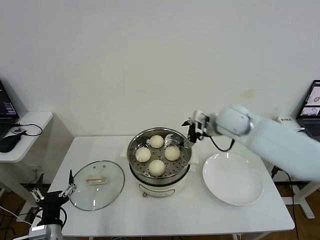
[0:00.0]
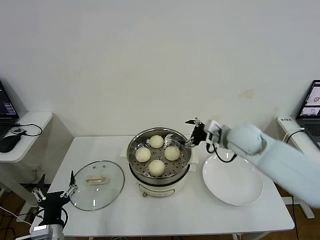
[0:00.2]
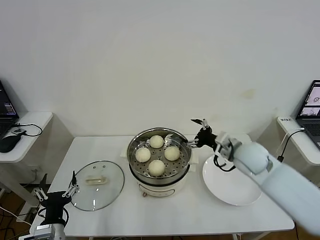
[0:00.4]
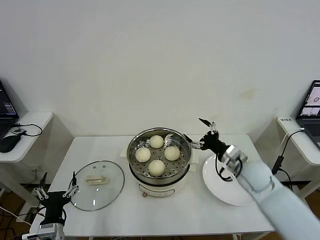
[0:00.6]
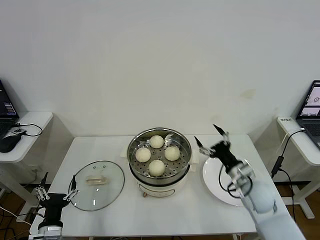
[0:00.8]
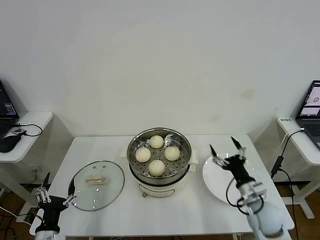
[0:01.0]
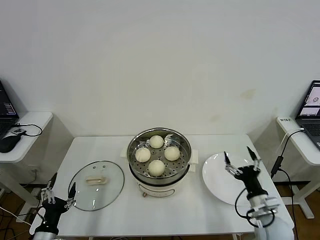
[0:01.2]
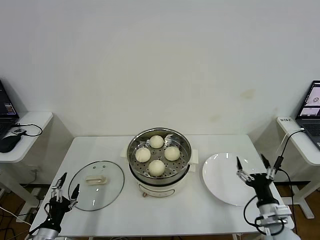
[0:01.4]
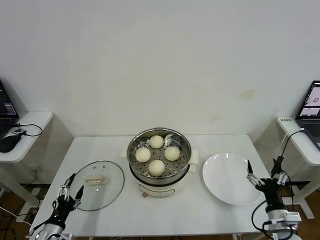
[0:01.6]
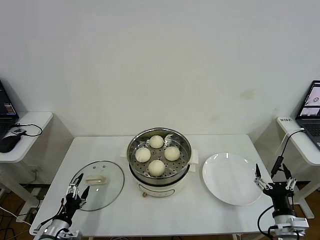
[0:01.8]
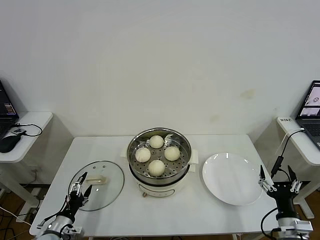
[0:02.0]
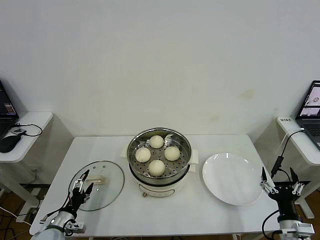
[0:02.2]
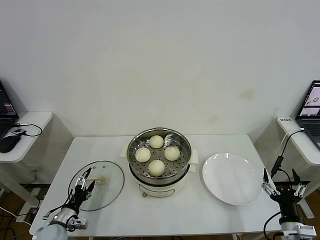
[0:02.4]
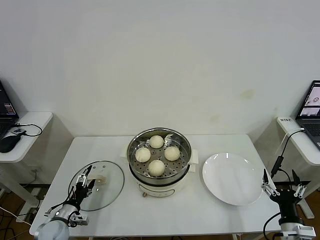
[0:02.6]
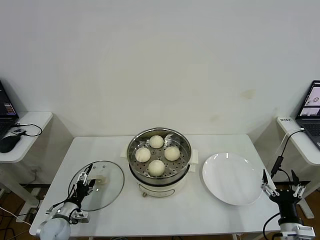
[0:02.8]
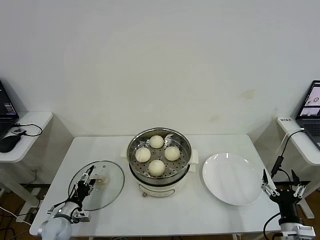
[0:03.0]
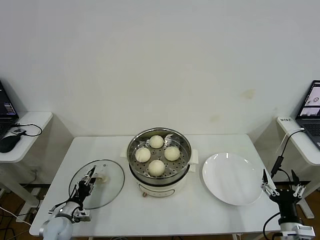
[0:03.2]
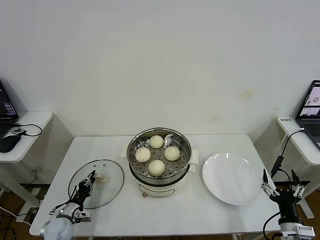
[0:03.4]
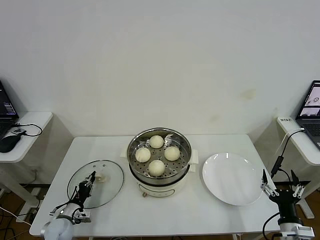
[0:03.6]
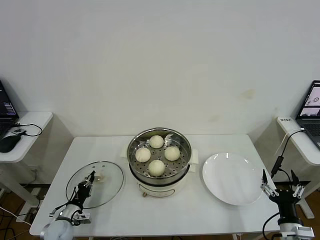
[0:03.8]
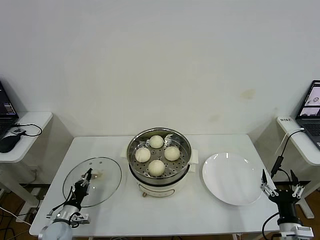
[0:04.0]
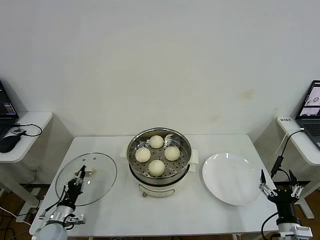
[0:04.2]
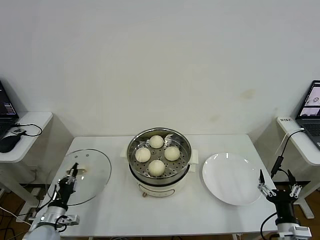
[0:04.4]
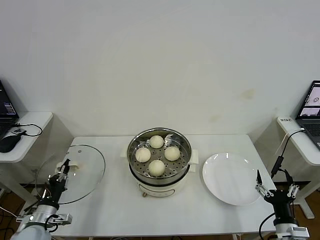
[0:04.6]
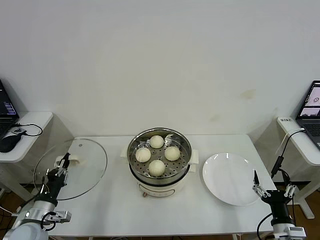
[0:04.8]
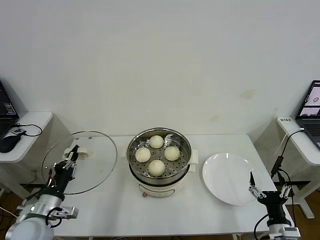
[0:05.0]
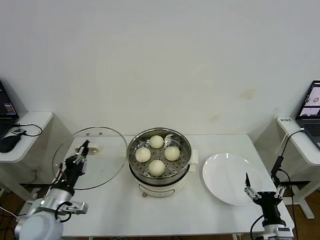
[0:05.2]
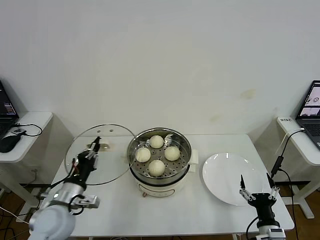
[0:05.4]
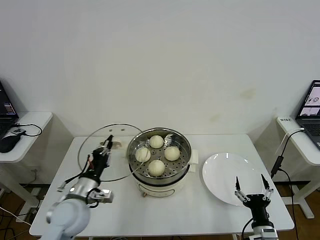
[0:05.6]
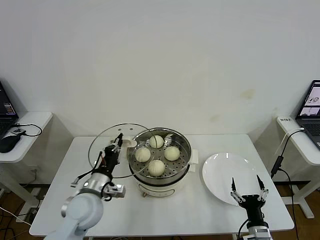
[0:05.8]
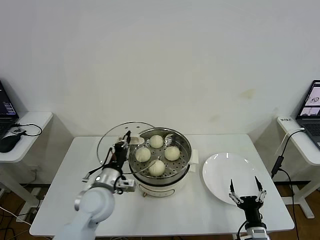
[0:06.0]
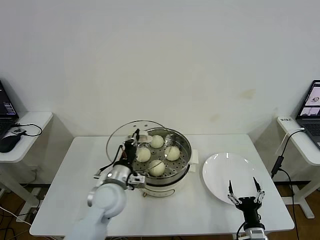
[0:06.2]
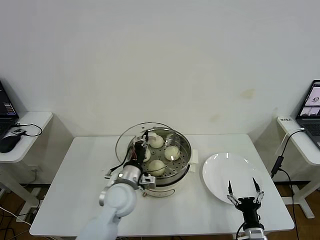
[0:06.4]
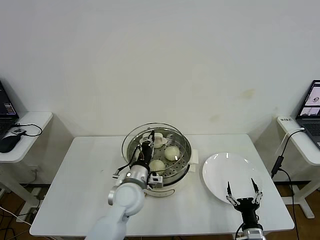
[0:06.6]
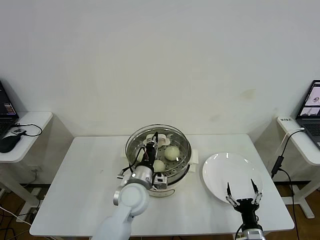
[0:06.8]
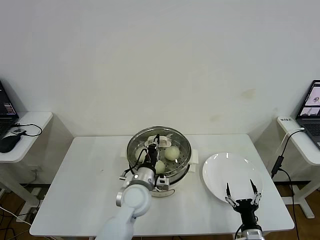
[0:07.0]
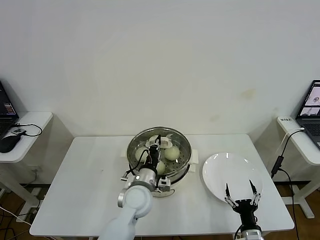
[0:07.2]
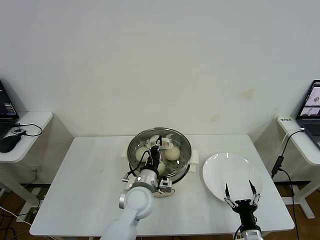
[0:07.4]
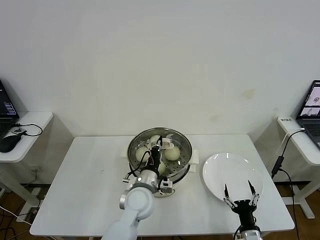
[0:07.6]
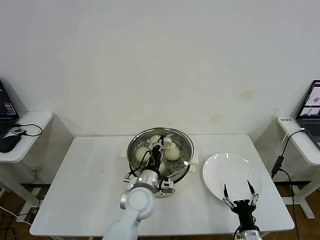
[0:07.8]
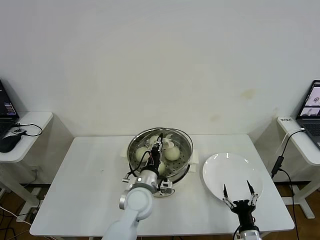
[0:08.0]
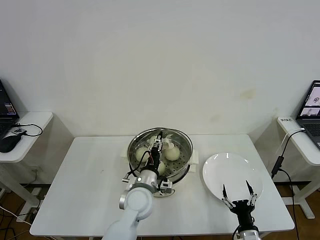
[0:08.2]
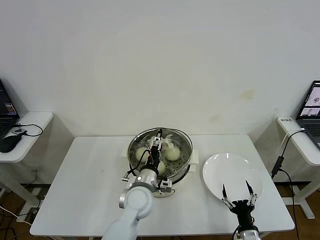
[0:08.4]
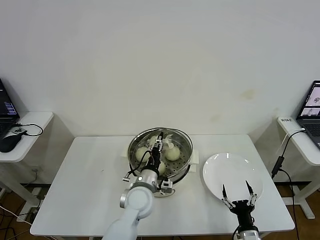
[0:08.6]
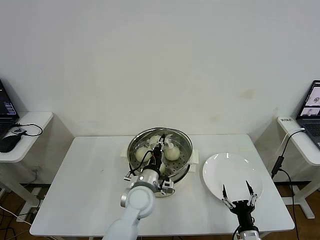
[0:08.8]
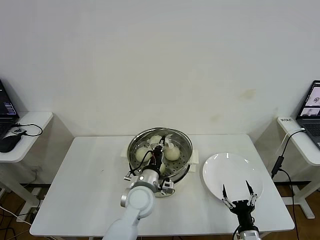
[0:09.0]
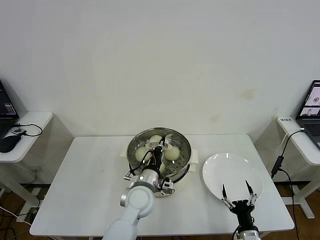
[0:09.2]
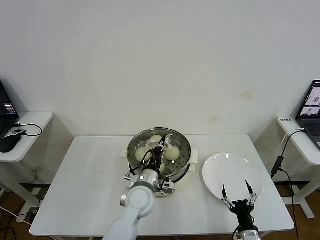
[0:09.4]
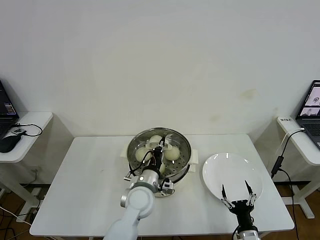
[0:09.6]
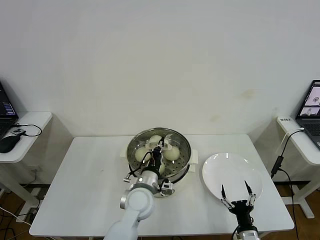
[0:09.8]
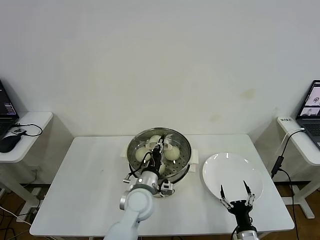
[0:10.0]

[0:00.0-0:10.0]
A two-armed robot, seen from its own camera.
Step, 0:00.0 to 0:03.6: Grasp the pot lid with left gripper.
0:00.0 to 0:01.4: The right gripper moves backward, downward and to the right, roughly 40 cm; the left gripper shifts approximately 10 cm to the left and downward.
0:01.4 to 0:02.8: The right gripper travels backward by approximately 5 cm, while the left gripper moves forward and downward, about 10 cm.
0:02.8 to 0:04.2: The left gripper closes.
0:04.2 to 0:05.8: The left gripper is displaced upward and to the right by some 25 cm. Meanwhile the right gripper is displaced to the left and downward by approximately 10 cm.
0:05.8 to 0:07.2: The left gripper shifts approximately 15 cm to the right.
0:07.2 to 0:08.6: The left gripper opens its fingers.
0:08.6 to 0:10.0: The left gripper closes.

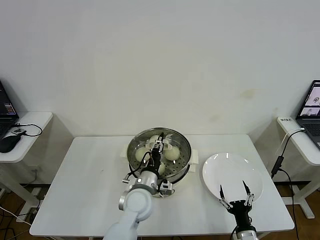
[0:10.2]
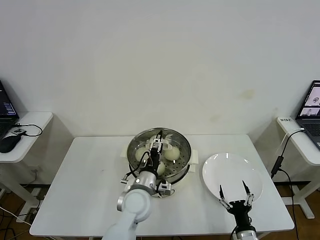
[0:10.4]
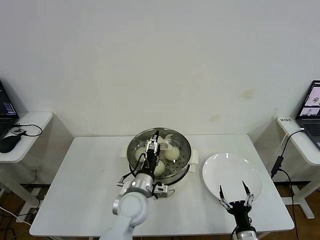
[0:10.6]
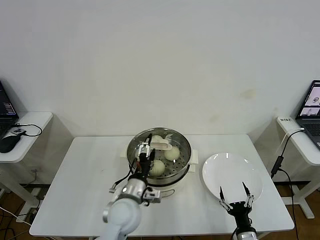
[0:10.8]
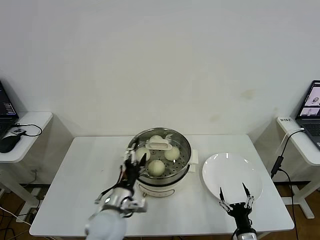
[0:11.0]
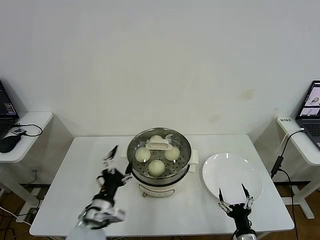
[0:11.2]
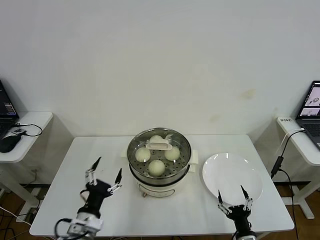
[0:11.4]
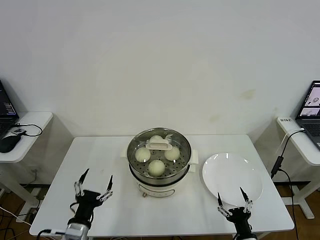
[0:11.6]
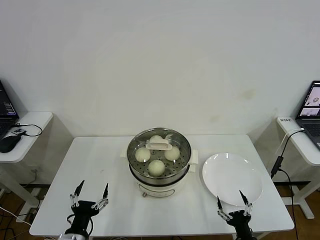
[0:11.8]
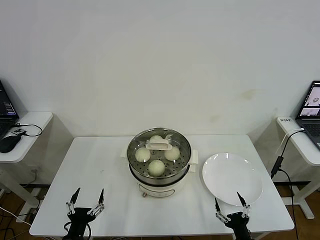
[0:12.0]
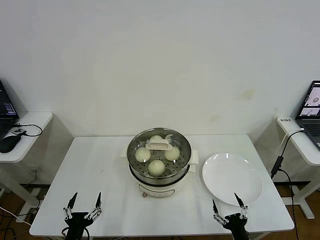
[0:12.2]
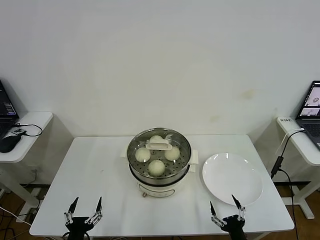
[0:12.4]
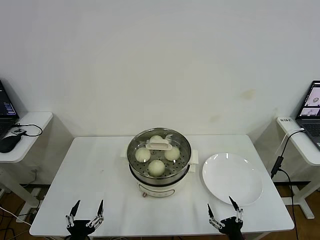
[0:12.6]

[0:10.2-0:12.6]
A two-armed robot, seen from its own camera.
0:10.2 to 0:11.4: The left gripper shifts approximately 20 cm to the left and backward, and opens.
0:11.4 to 0:12.6: The left gripper travels backward, downward and to the left by roughly 15 cm.
